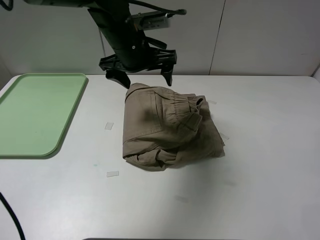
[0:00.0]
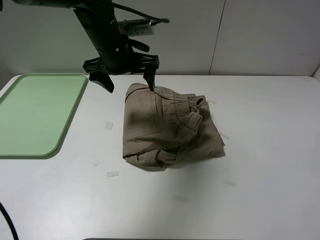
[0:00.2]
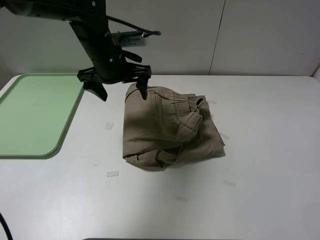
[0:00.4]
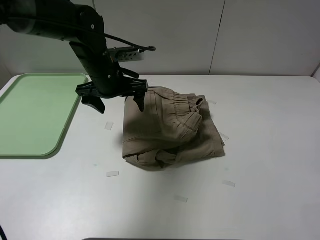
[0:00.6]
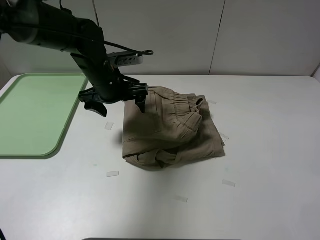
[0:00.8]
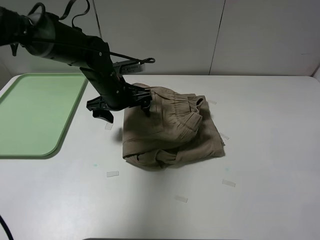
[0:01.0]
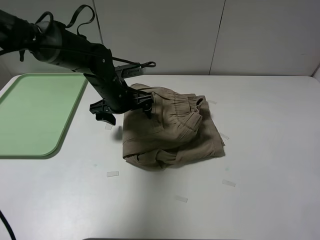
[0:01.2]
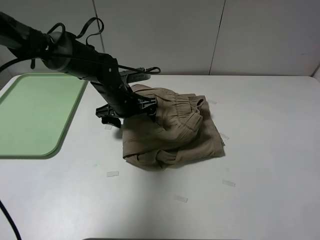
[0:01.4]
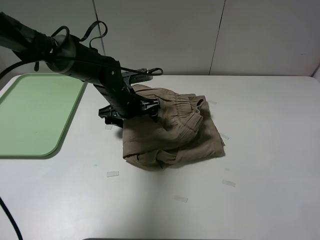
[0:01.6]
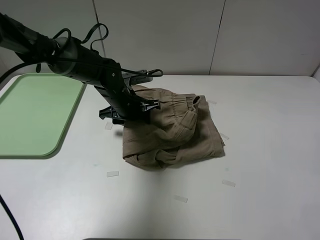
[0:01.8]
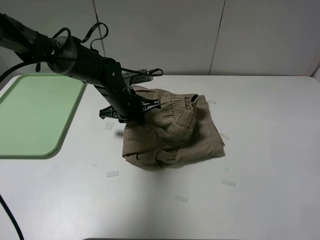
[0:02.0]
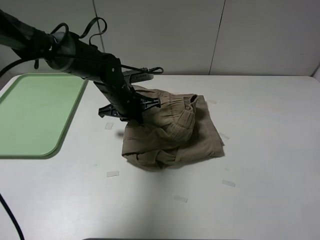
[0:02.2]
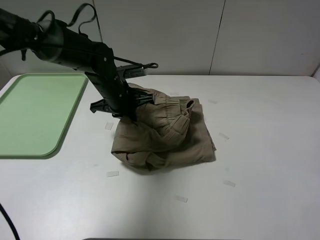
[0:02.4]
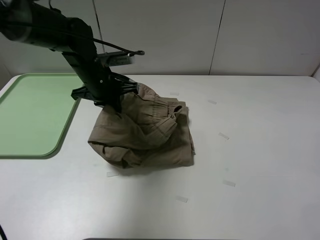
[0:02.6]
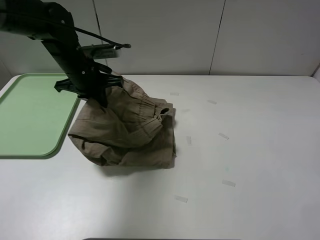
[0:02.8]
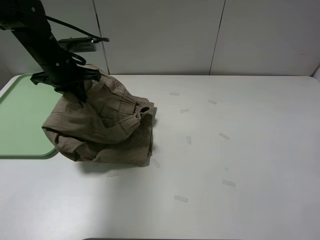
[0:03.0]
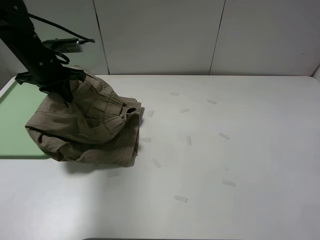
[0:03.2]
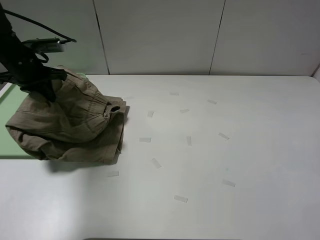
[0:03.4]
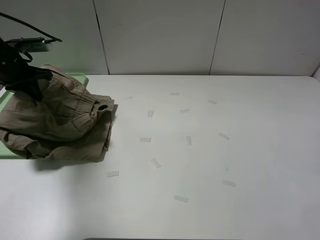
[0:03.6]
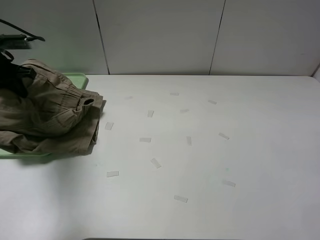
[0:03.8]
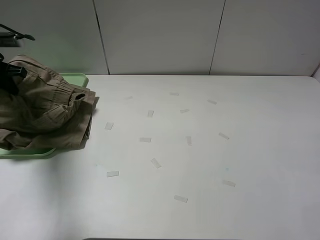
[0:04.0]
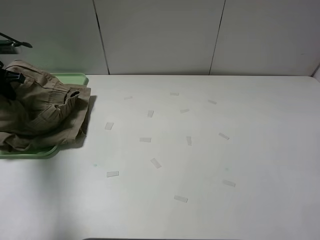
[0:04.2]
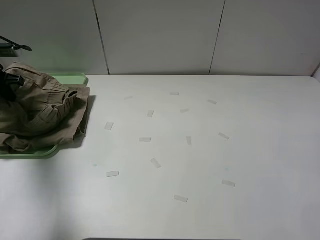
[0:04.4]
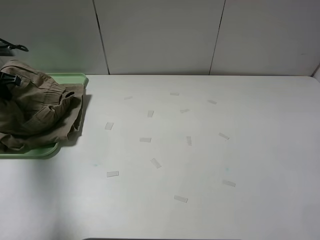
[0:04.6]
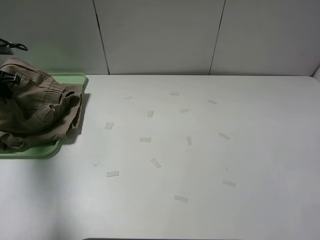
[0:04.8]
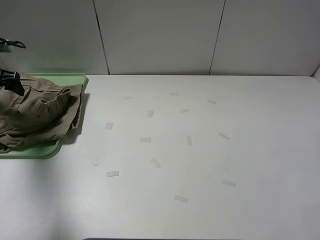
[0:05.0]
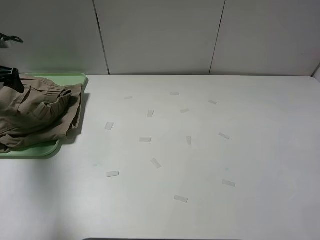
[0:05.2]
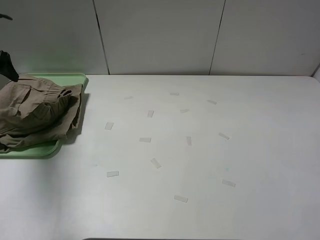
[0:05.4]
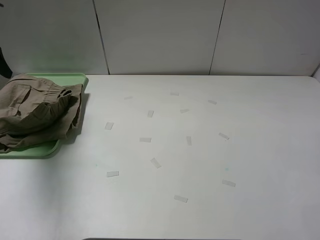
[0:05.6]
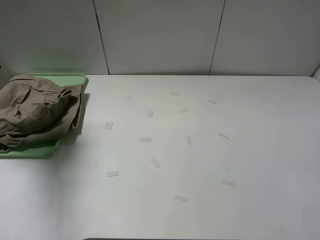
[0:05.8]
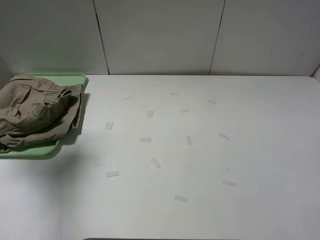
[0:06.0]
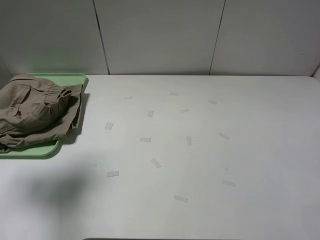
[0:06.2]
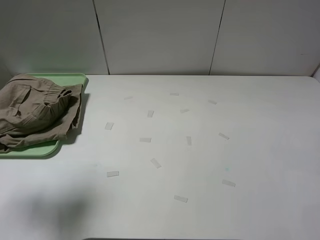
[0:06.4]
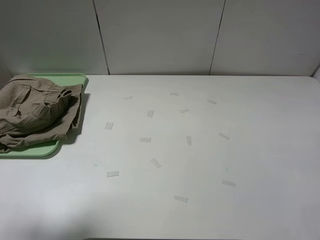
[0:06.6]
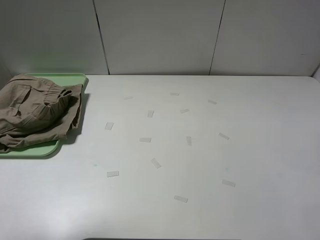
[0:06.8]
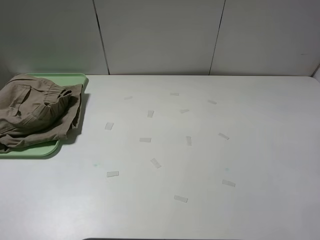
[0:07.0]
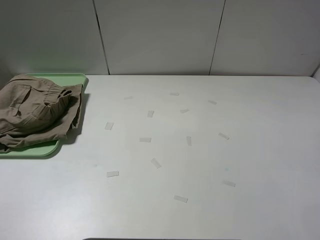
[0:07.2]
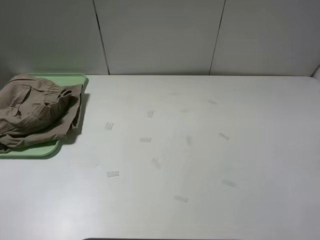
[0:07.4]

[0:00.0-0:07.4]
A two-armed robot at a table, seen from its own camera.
Task of the whole recording: fold the khaki jeans in half with two grippers, then fold them in half again, and use the left claw to place the folded fold khaki jeans on the tray.
Step, 0:00.0 to 0:02.0: Grasp the khaki trousers with the left gripper.
Step, 0:02.2 to 0:05.0: Place the folded khaki trousers on the green tray with the left gripper.
0:00.0 to 0:01.4: The left gripper is displaced downward by roughly 15 cm.
0:01.4 to 0:03.0: The left gripper moves to the left and upward, approximately 15 cm, and closes its fingers.
0:03.0 to 0:04.4: The left gripper goes some 20 cm to the left.
0:04.4 to 0:06.0: The left gripper heads upward and backward, covering about 20 cm, and opens its fingers.
0:06.0 to 0:07.4: The left gripper goes some 25 cm backward.
